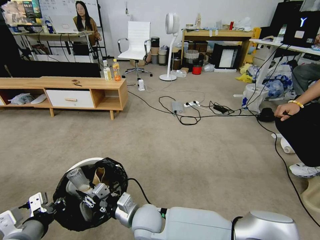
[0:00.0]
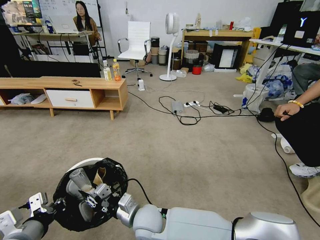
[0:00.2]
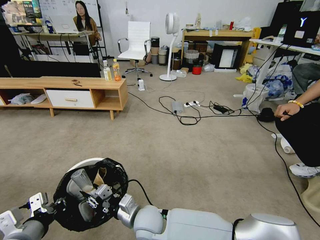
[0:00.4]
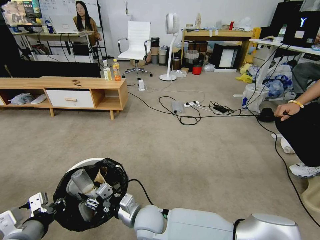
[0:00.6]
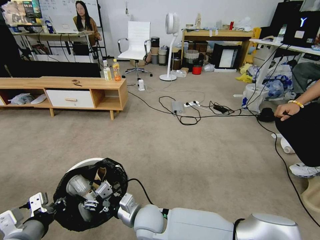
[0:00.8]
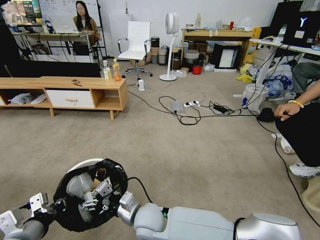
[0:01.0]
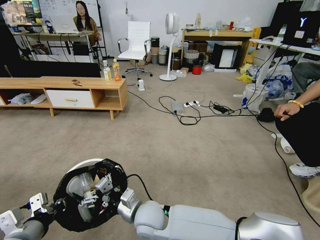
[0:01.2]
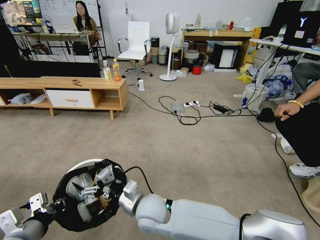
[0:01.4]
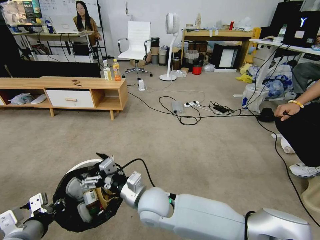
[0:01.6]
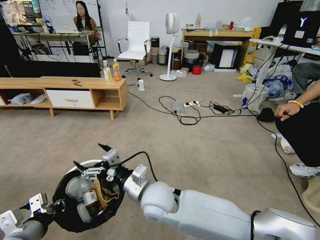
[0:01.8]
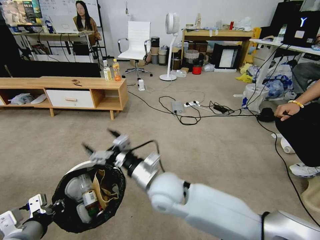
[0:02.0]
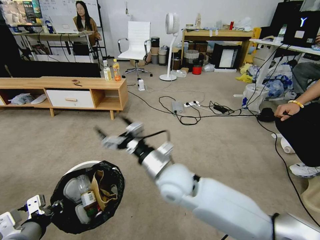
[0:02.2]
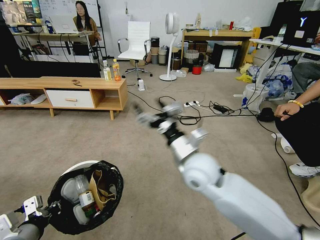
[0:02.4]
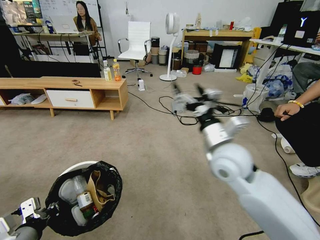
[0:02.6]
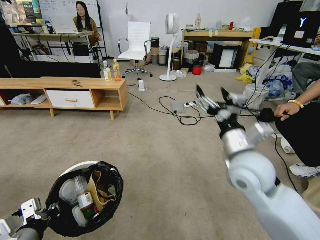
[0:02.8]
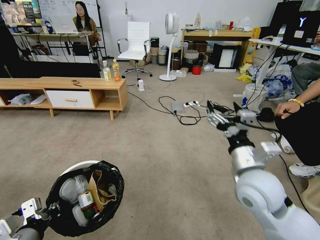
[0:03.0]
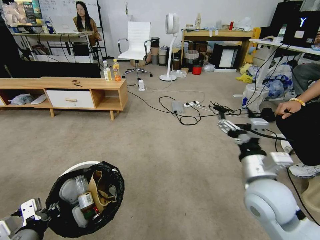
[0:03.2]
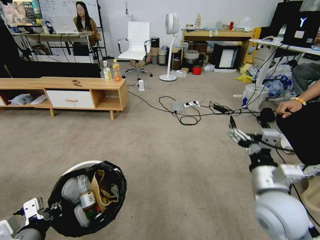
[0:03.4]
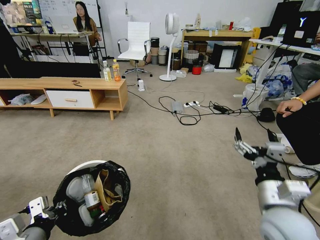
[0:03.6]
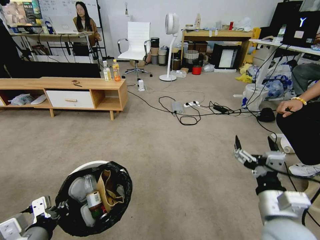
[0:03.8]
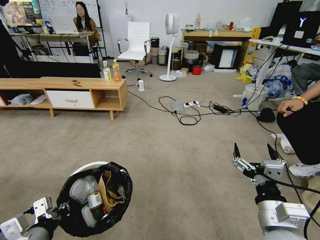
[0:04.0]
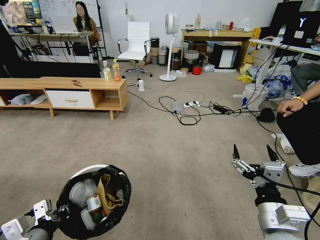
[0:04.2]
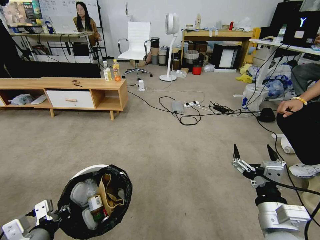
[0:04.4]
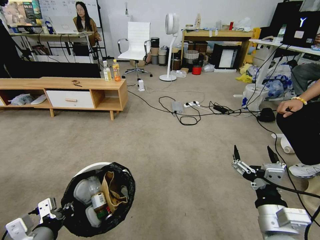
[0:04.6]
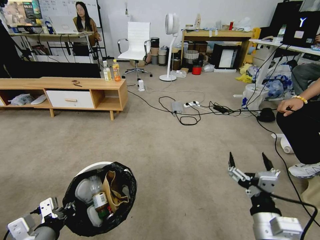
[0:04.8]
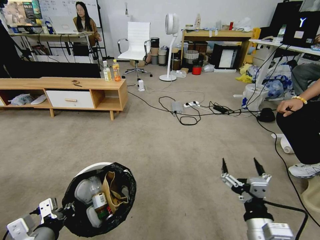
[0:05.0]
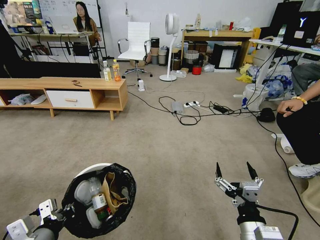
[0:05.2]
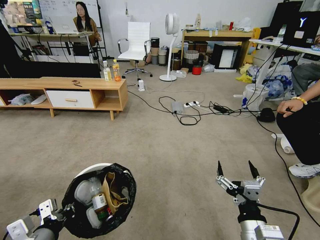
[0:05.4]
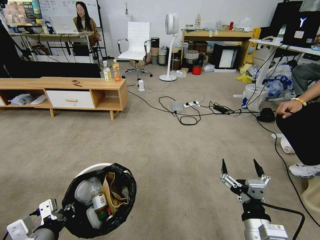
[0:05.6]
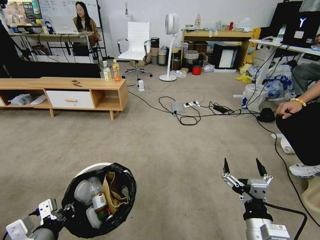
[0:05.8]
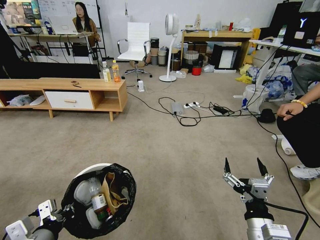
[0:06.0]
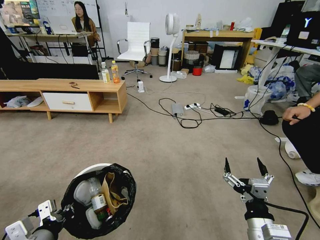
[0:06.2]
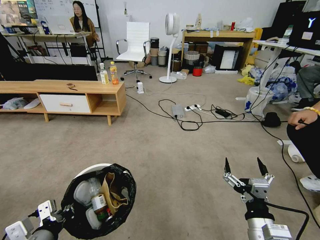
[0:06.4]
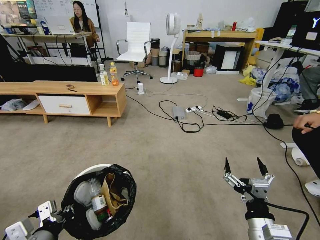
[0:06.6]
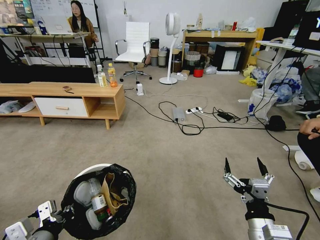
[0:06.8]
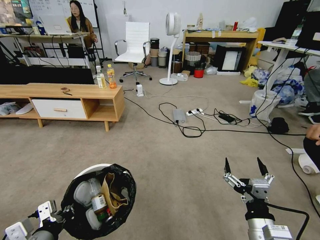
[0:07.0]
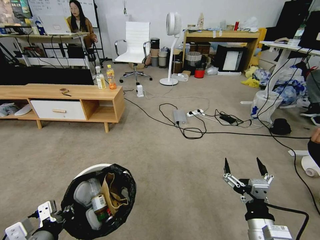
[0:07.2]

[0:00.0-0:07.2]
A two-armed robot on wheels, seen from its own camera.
Task of the whole recording: Pick up the trash bin and place the garbage on the floor into it.
0:00.0 to 0:01.4: The right gripper opens.
0:01.4 to 0:02.8: The right gripper goes roughly 30 cm to the right and upward.
0:02.8 to 0:04.4: The right gripper travels backward and downward by about 20 cm.
0:04.4 to 0:05.8: The right gripper shifts some 5 cm downward.
